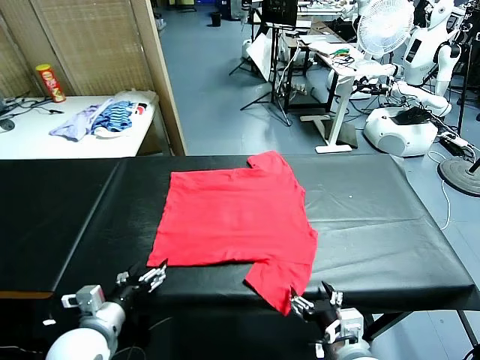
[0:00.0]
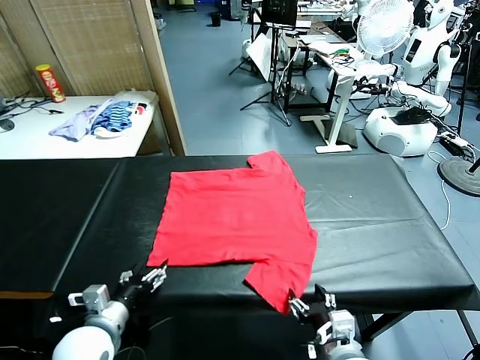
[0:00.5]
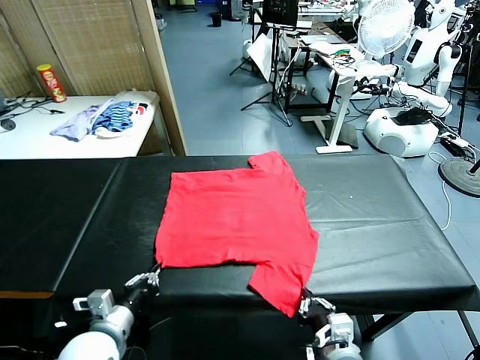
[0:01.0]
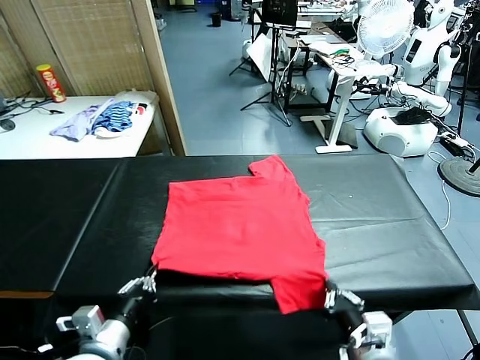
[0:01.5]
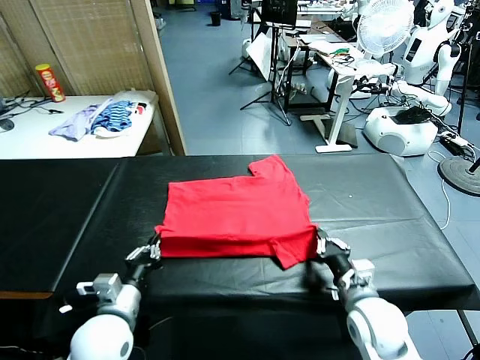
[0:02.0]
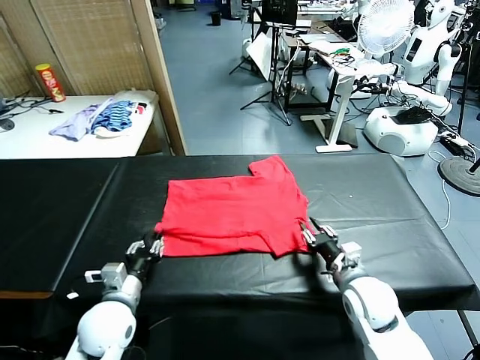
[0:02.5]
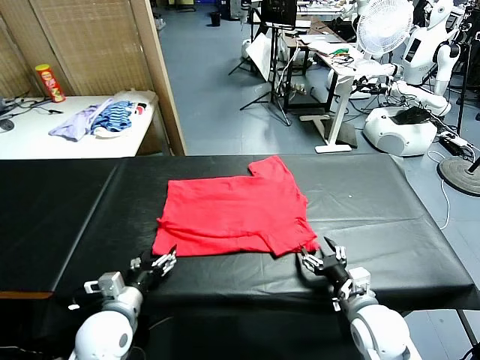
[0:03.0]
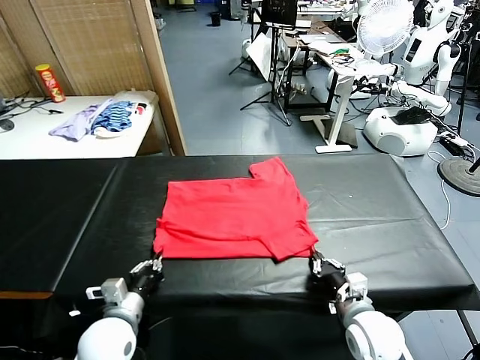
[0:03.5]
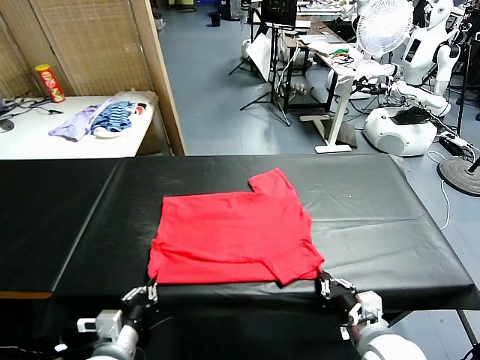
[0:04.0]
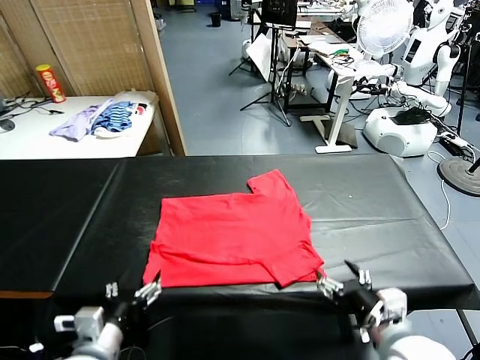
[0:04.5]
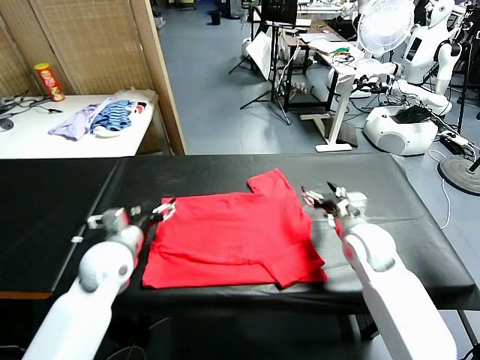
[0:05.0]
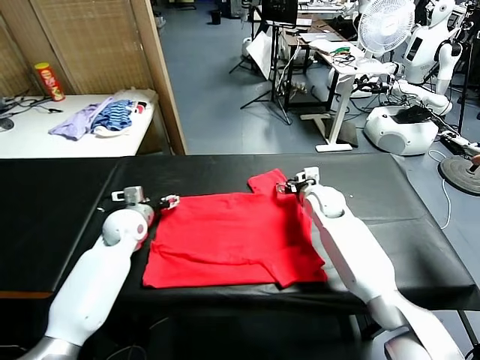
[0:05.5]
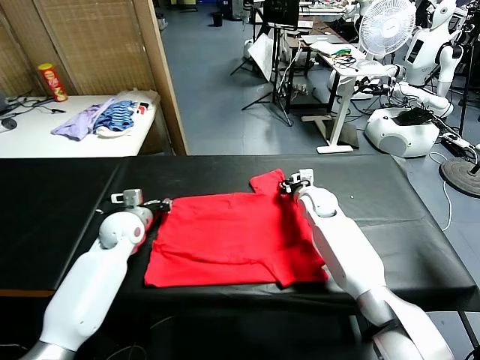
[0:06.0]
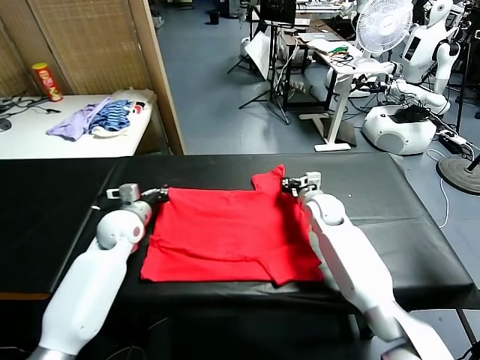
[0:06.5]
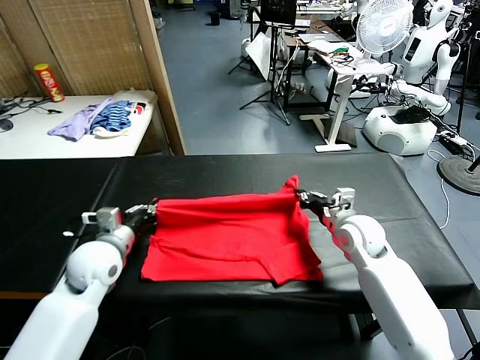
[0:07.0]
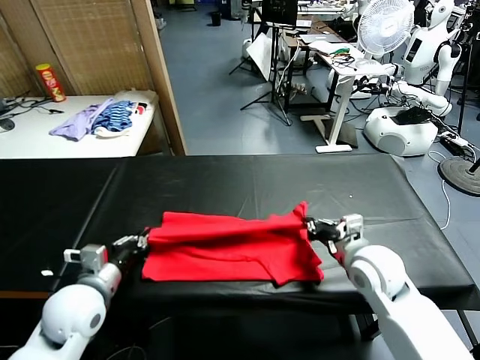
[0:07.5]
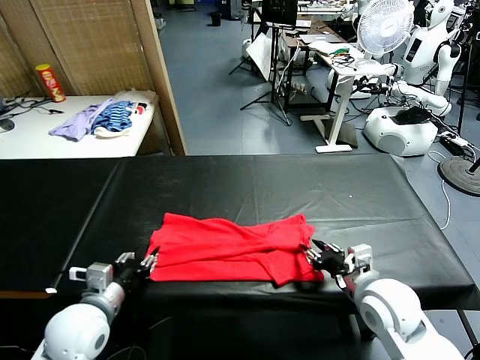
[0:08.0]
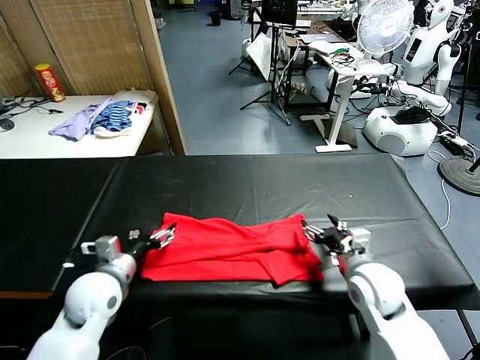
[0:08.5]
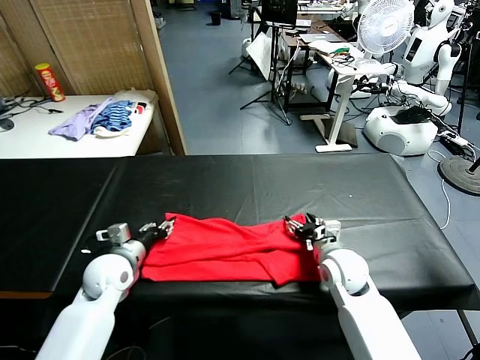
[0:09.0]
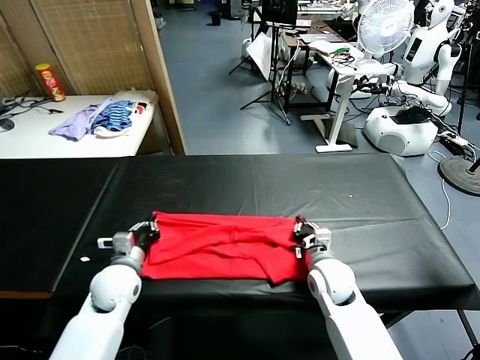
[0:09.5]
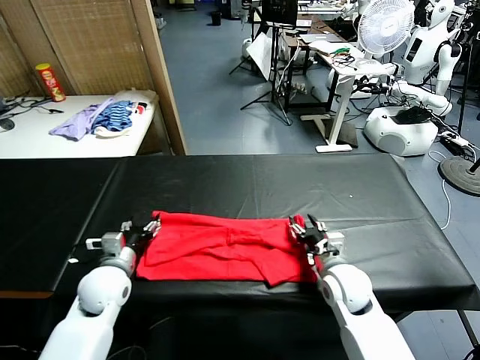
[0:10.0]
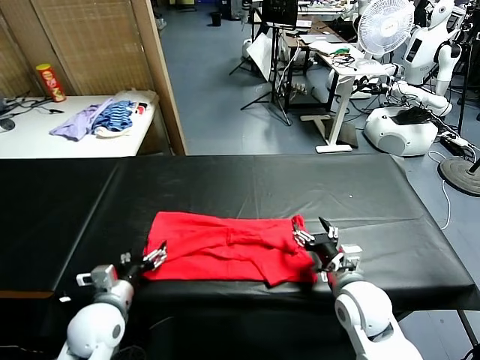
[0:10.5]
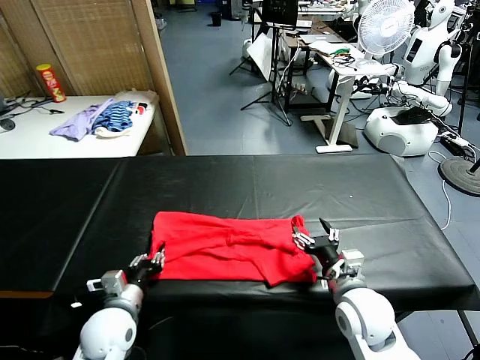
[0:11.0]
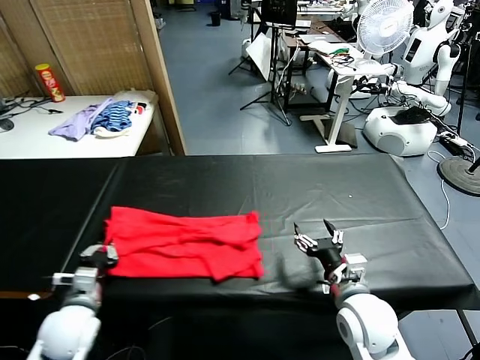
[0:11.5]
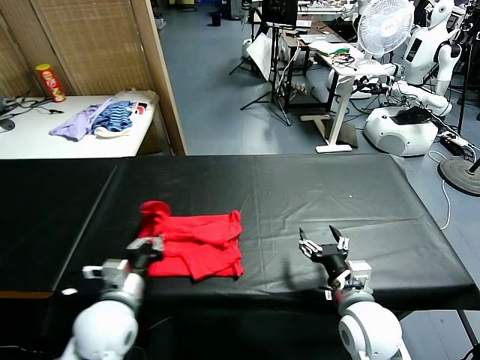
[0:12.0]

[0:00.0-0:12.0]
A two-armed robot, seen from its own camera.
Task of the whole recording: fold and organize the clothes.
Step, 0:00.0 to 0:01.0: use both grippers simultaneously to clamp the lower edge of the clothing fabric.
Step, 0:01.5 to 0:02.5: use both grippers to drag the lower edge of the fabric forward and fold it over the upper edge.
Step, 0:03.0 to 0:04.0: Drag the clothes downward with both gripper.
Step, 0:04.5 to 0:06.5: use both grippers simultaneously to clamp the upper edge of the clothing fabric.
Step, 0:07.0 to 0:08.0: use both grippers to drag the upper edge of the fabric backward and fold it over the lower edge.
Step, 0:08.5 to 0:11.0: use the left gripper to clamp the left edge of the fabric.
0:02.0 to 0:04.0: Both grippers move backward, roughly 10 cm. The right gripper opens. The left gripper opens, then closes once more.
0:04.0 to 0:06.0: Both grippers move forward, approximately 35 cm. The left gripper opens, then closes once more; the right gripper closes up.
0:06.0 to 0:08.0: Both grippers travel together backward, roughly 25 cm. The left gripper opens its fingers. The right gripper opens up.
0:08.0 to 0:10.0: The left gripper is displaced forward by some 10 cm, and closes, then opens again; the right gripper moves downward and forward, roughly 10 cm, and closes, then reopens.
0:10.0 to 0:12.0: The left gripper travels backward and to the right by approximately 10 cm, and closes up, while the right gripper shifts some 10 cm backward.

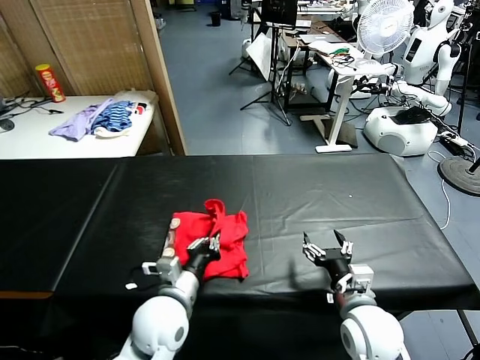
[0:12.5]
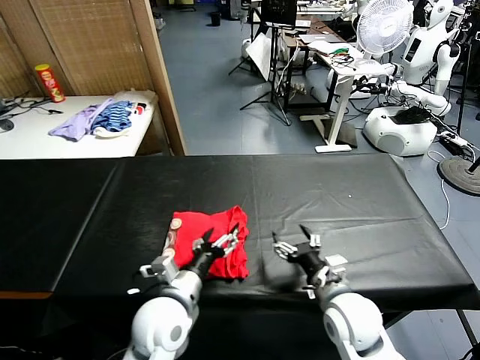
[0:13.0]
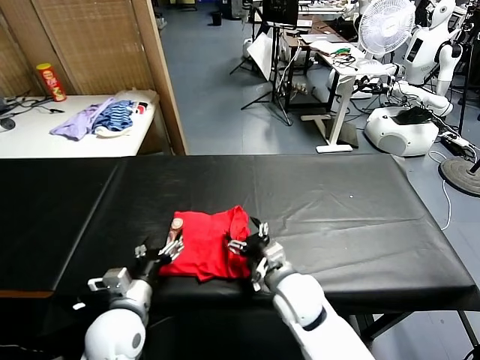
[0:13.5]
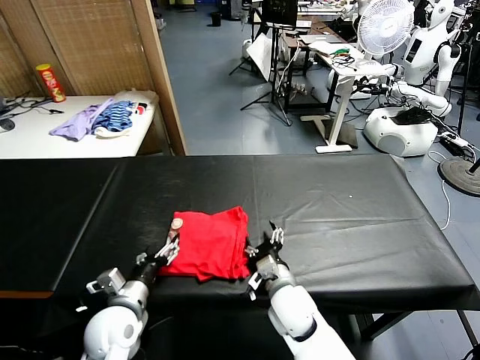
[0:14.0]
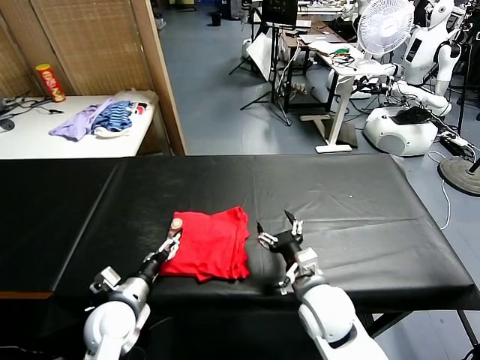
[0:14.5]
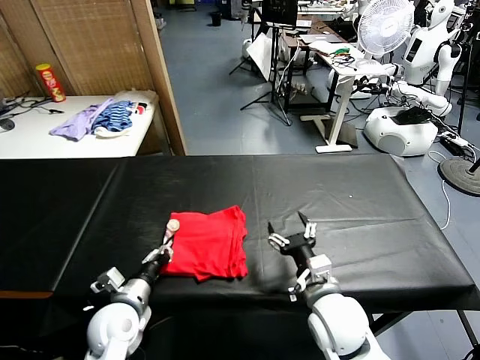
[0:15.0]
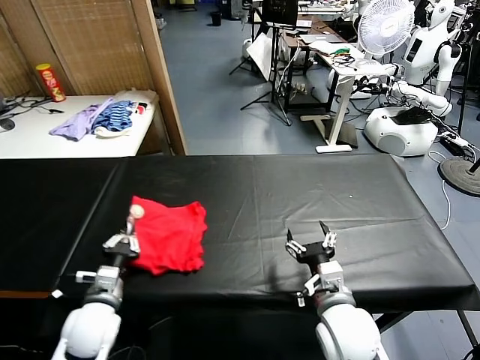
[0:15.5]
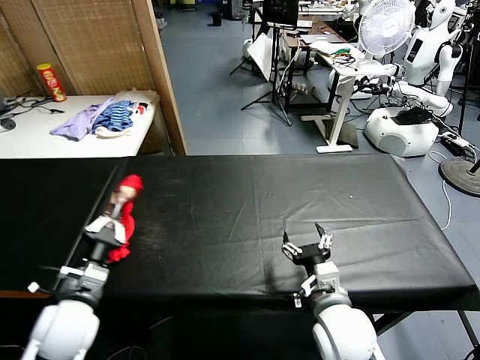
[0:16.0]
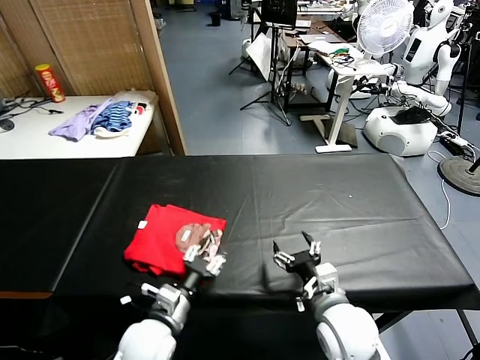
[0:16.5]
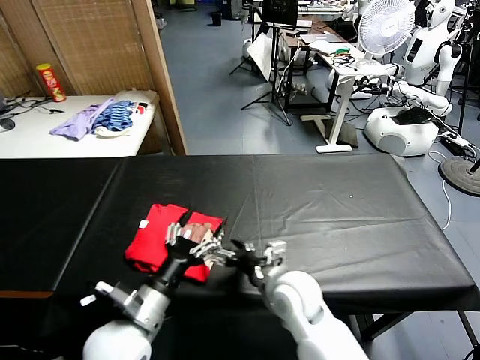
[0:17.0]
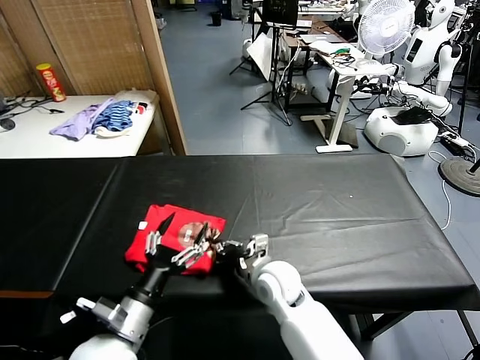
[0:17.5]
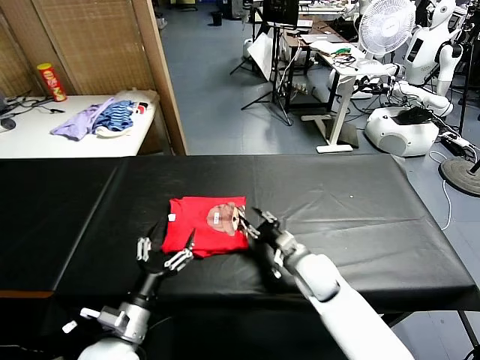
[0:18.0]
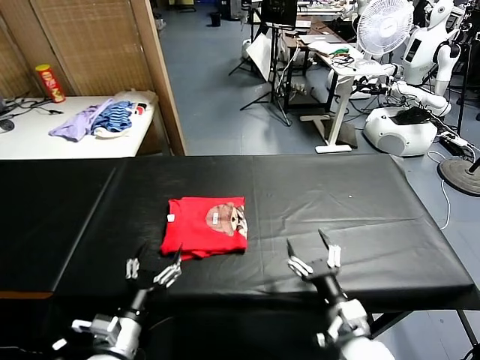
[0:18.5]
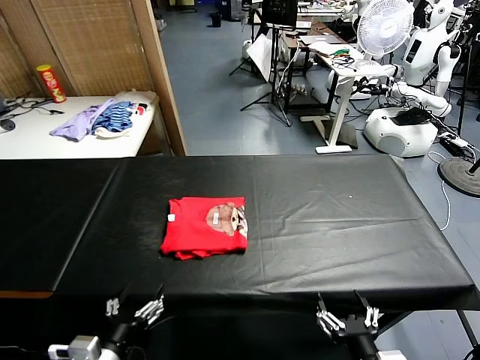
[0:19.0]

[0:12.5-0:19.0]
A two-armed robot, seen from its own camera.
Task of the whole recording: fold and organize the clothes.
Step, 0:13.5 to 0:16.5: Flip the folded clothes over with left gripper.
Step, 0:17.0 to 0:18.0: Drag the clothes to the center of the table.
0:12.5 to 0:14.5: The left gripper heads to the left and downward, covering some 15 cm, and opens up, while the right gripper travels to the left by about 5 cm.
0:14.5 to 0:17.0: The left gripper is displaced upward, to the right and backward by roughly 15 cm, and closes, then opens again.
0:17.0 to 0:19.0: The left gripper travels backward and to the left by approximately 10 cm; the right gripper is displaced backward and to the right by approximately 25 cm, and closes, then opens again.
